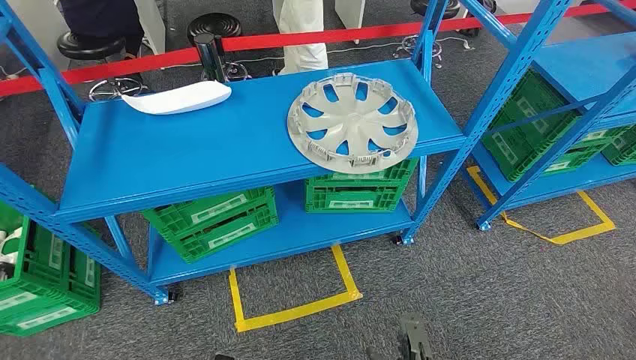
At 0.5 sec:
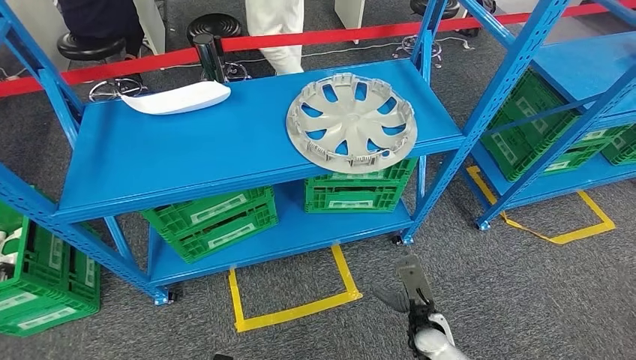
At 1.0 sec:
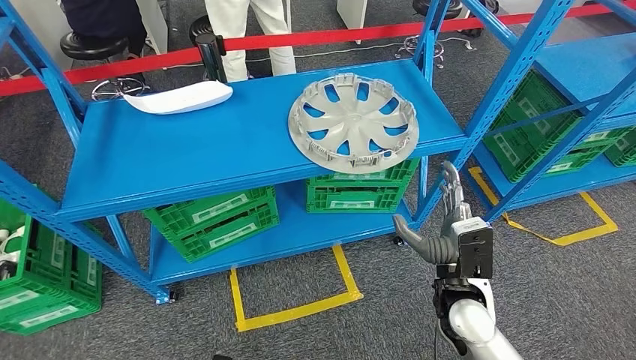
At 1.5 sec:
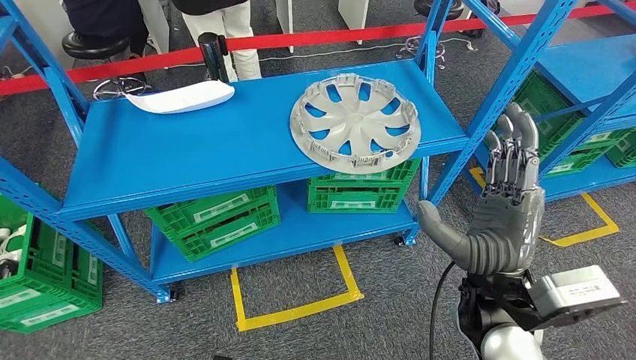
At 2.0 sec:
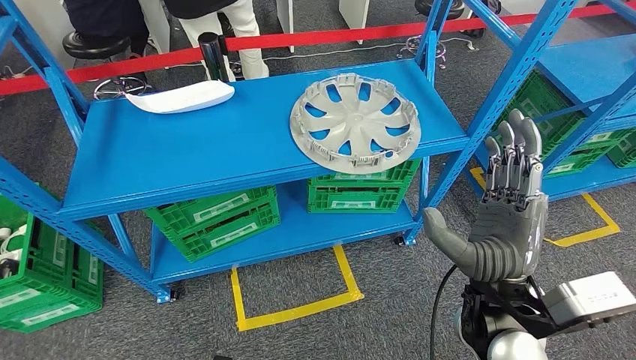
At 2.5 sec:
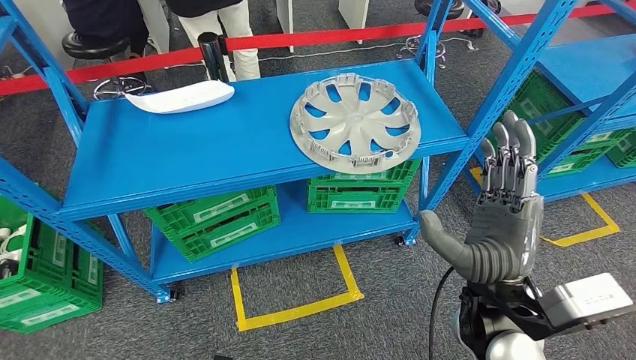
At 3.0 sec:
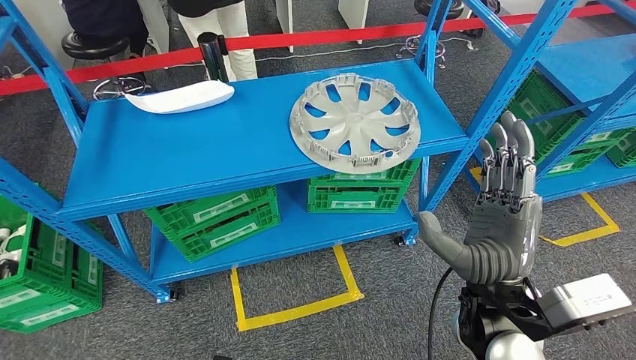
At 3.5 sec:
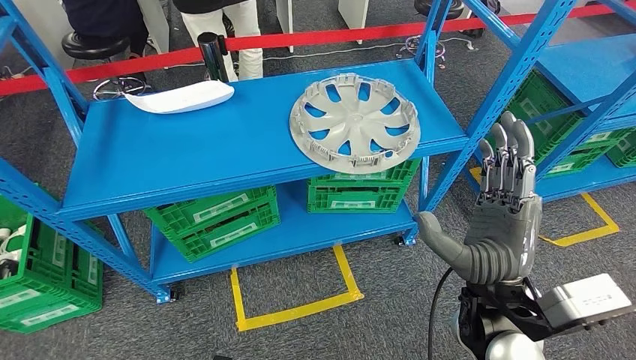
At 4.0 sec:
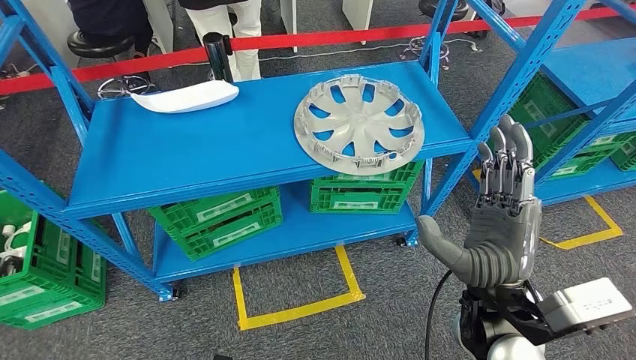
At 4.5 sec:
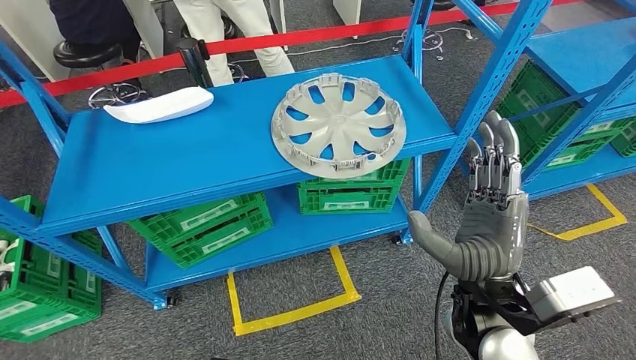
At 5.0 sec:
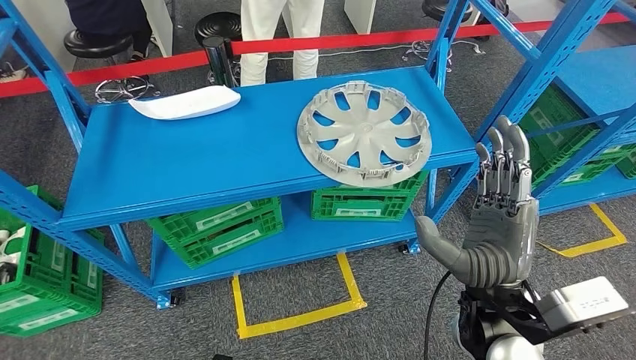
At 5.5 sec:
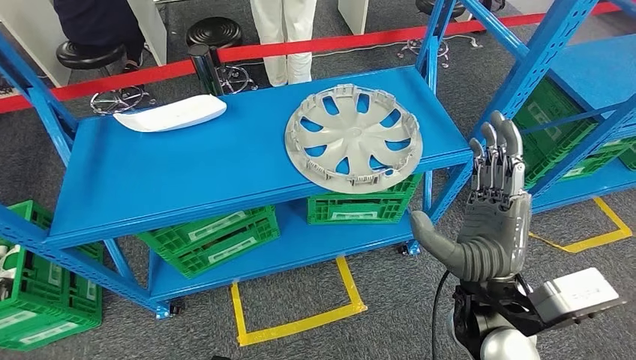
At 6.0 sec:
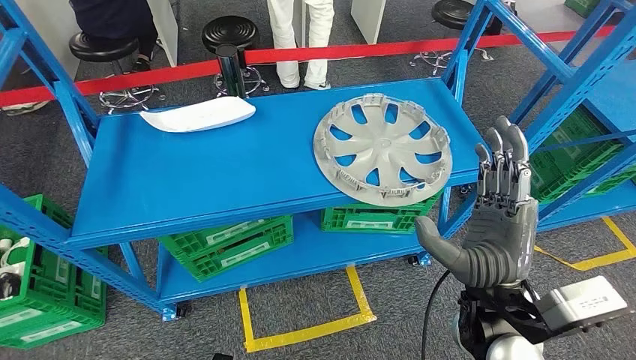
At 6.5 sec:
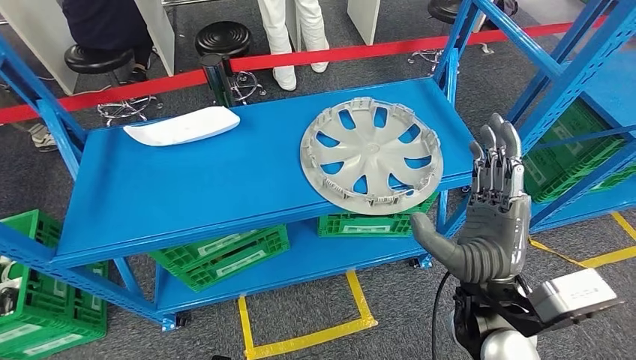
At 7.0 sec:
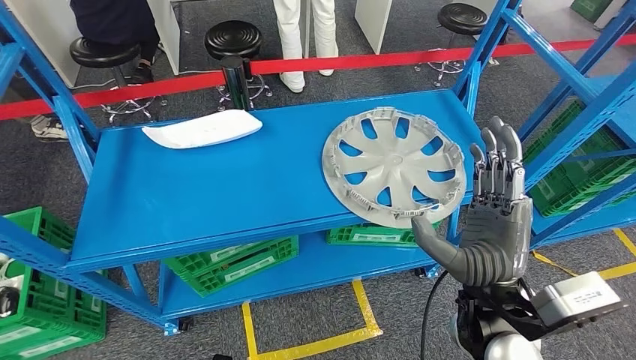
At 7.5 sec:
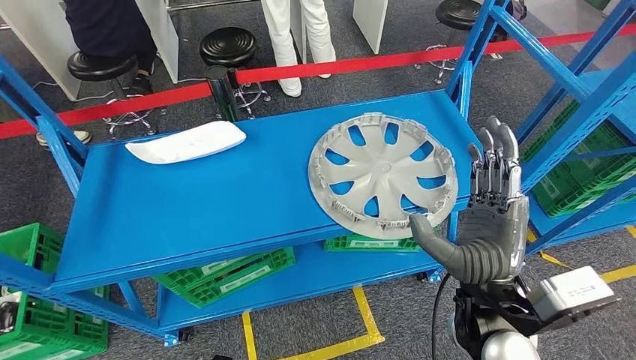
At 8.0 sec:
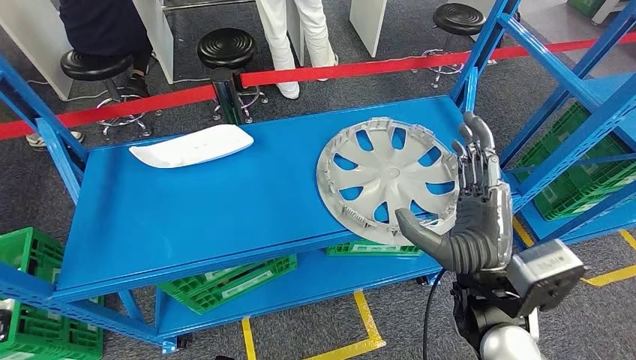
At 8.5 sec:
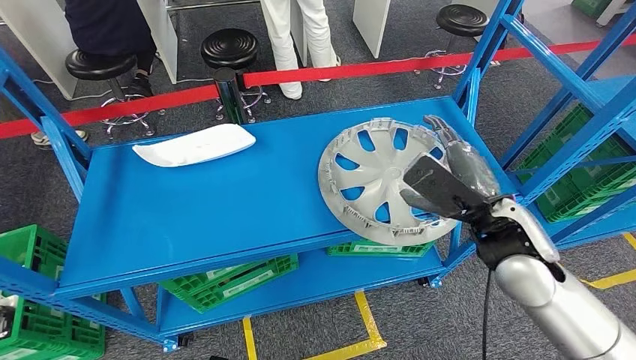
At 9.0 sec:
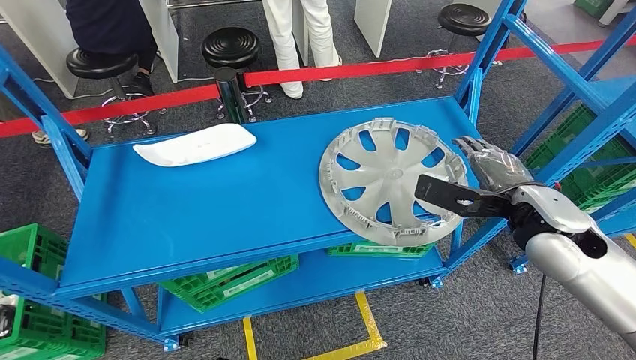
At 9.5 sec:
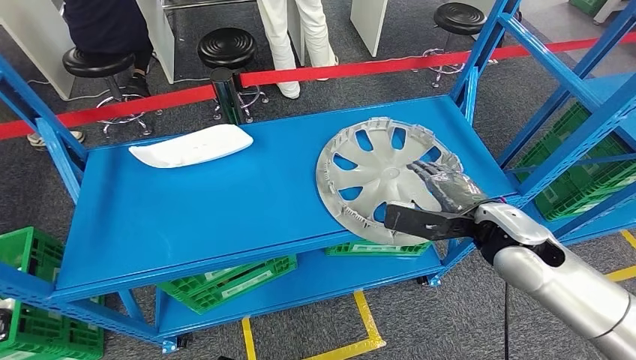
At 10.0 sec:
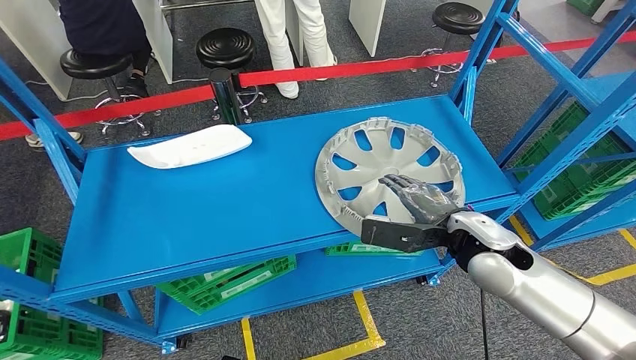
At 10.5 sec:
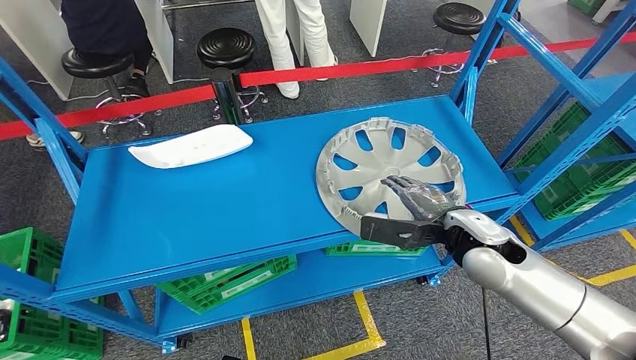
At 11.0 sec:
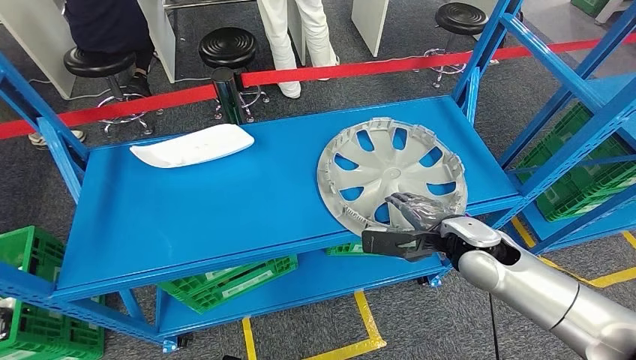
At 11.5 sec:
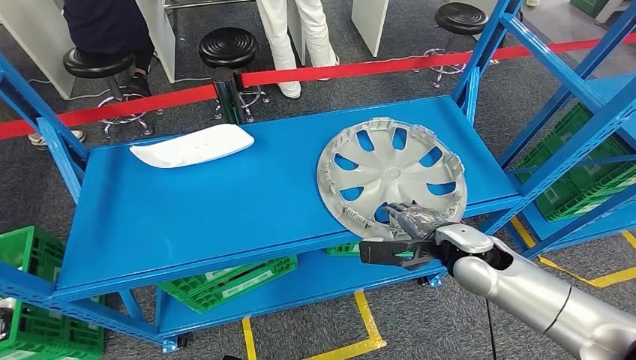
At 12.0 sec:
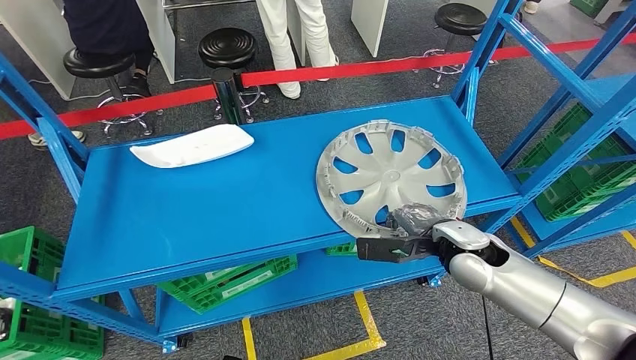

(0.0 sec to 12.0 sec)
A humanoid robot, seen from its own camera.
2.0 sec - 4.0 sec: Neither hand changes place.
8.0 sec - 10.0 sec: The right hand shifts about 10 cm forward and to the right.
10.0 sec - 12.0 sec: The right hand changes place by some 5 cm.

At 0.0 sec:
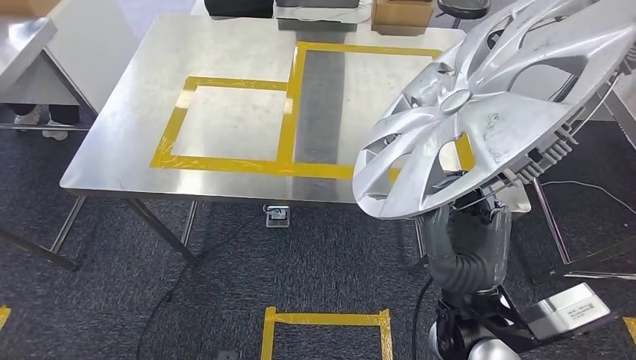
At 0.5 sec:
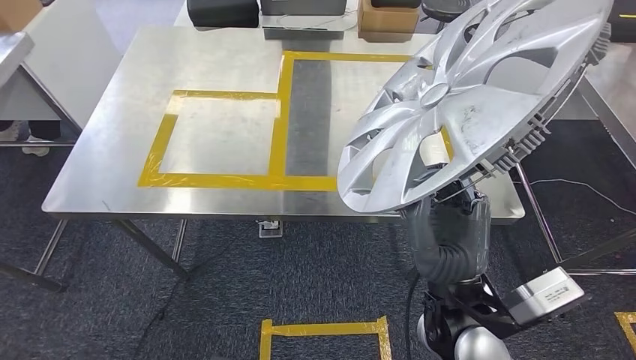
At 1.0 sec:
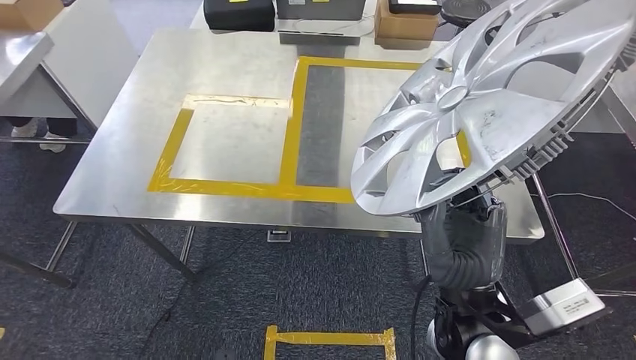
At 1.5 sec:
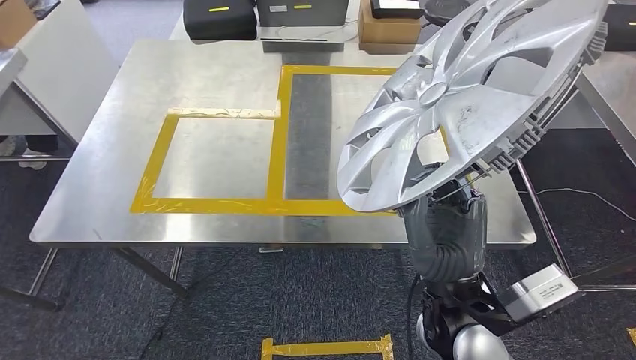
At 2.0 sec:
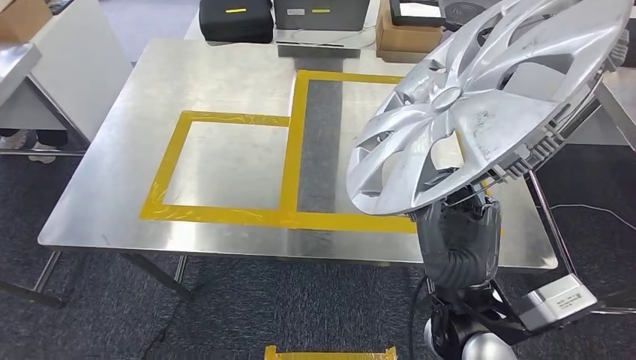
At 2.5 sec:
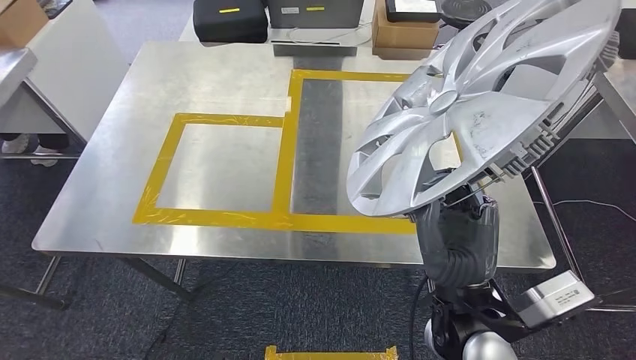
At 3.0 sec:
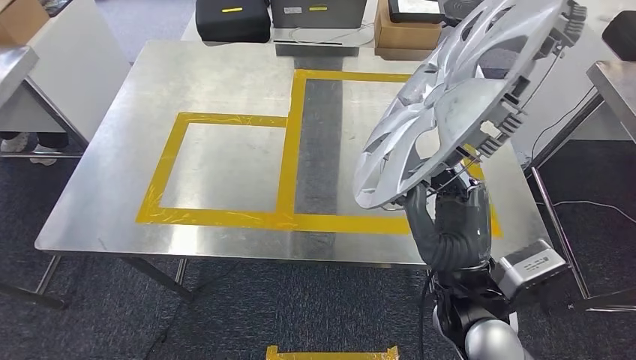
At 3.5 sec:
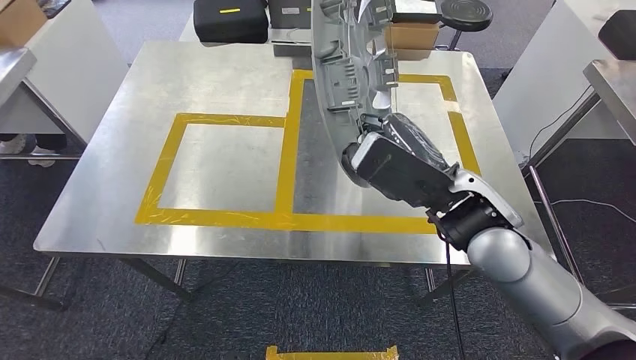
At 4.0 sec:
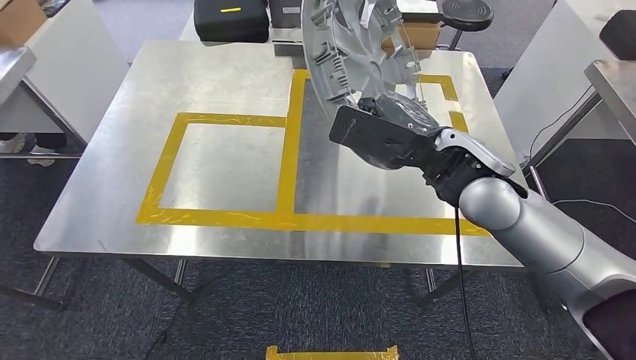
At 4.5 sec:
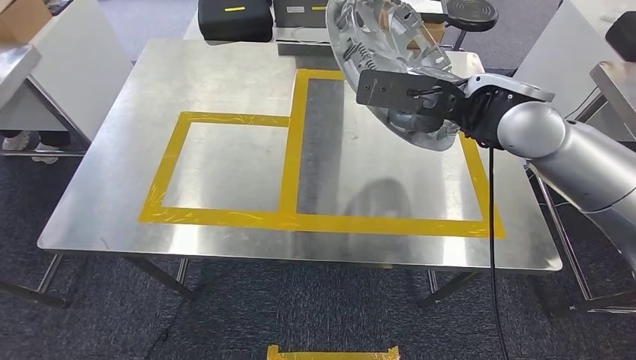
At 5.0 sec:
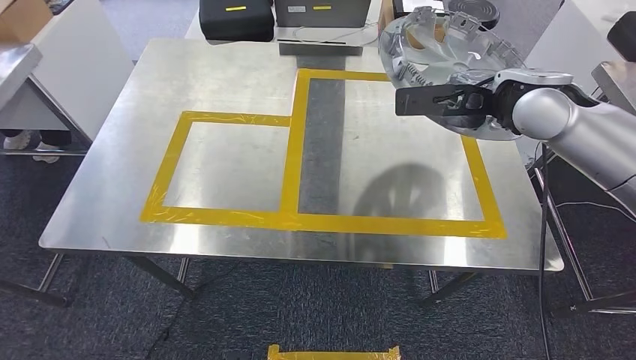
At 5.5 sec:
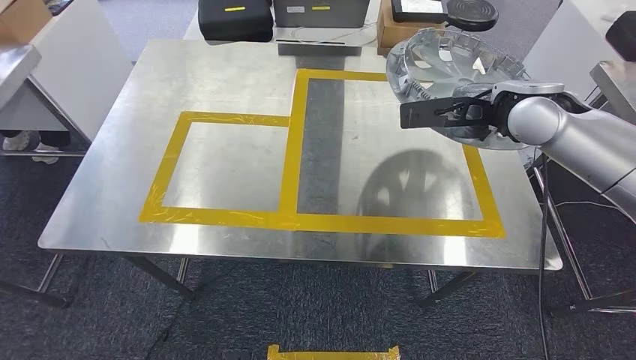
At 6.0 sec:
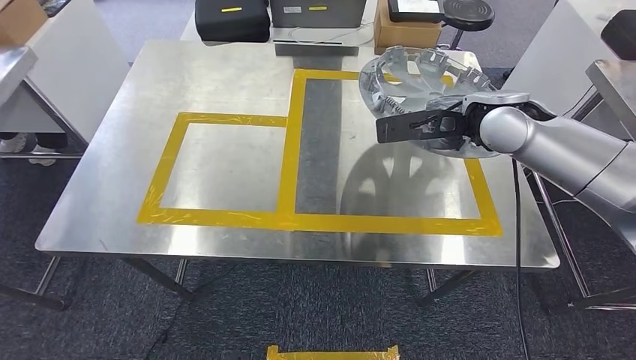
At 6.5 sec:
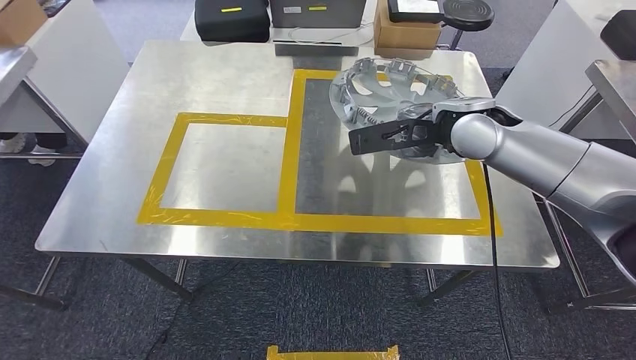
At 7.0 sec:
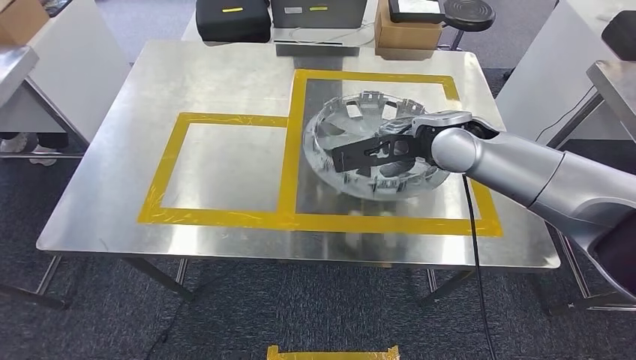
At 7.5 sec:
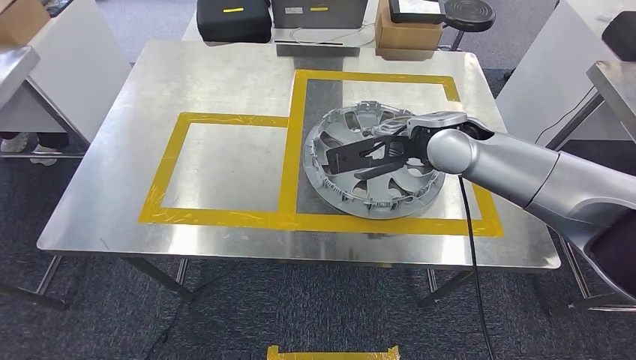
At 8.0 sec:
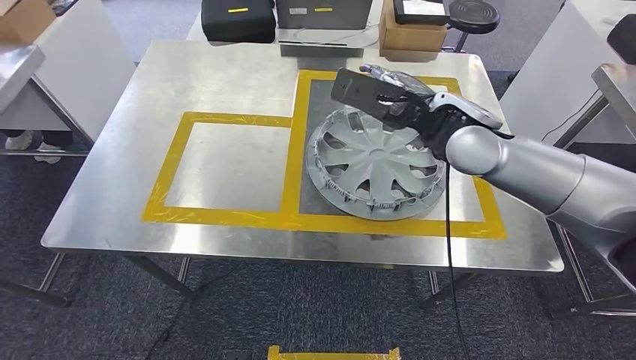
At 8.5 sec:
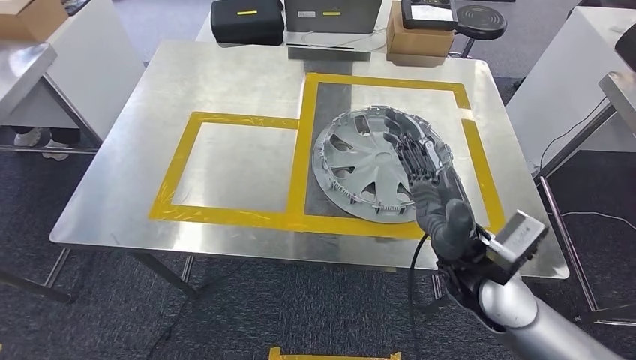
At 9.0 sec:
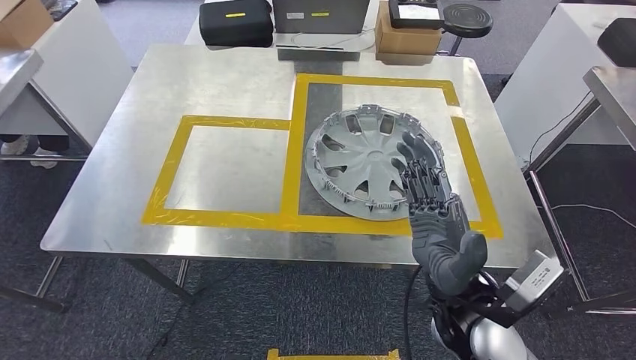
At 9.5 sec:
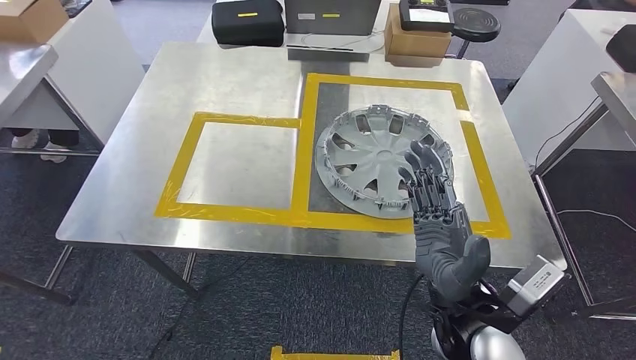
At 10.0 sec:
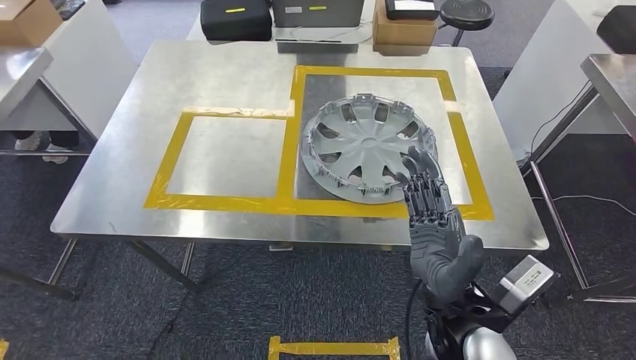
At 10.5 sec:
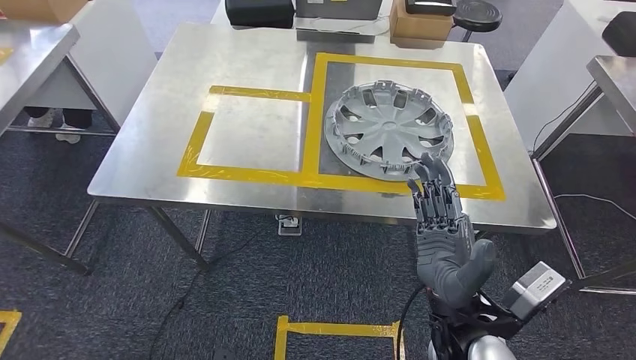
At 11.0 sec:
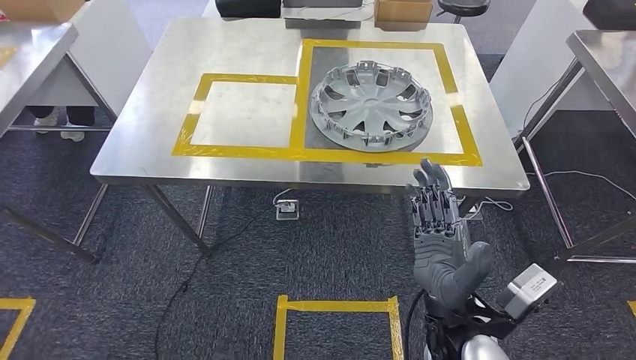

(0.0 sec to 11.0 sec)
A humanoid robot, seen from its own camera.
Step, 0.0 sec - 2.0 sec: Move the small component to the workbench.
Step, 2.5 sec - 9.5 sec: Insert the small component into the corresponding slot on the workbench.
5.5 sec - 7.5 sec: The right hand is displaced to the left by roughly 10 cm.
